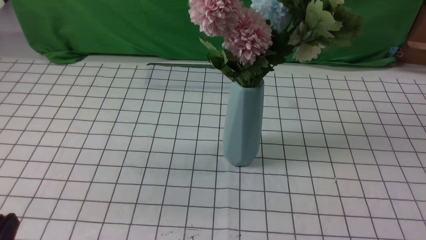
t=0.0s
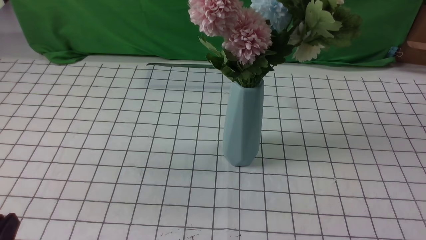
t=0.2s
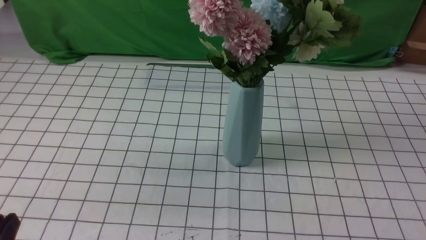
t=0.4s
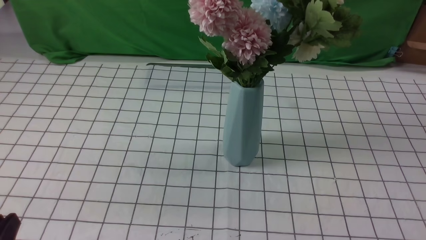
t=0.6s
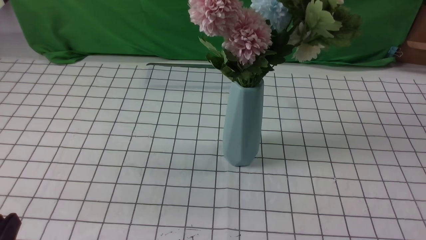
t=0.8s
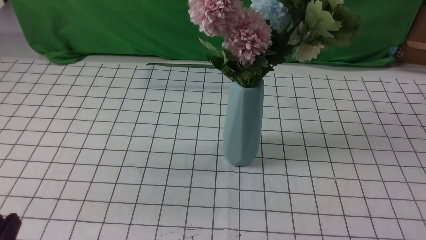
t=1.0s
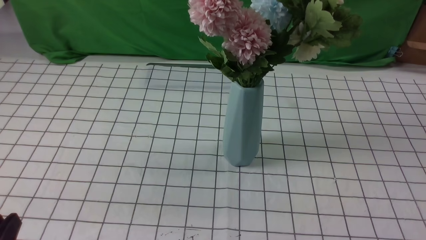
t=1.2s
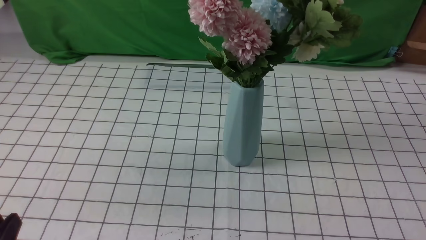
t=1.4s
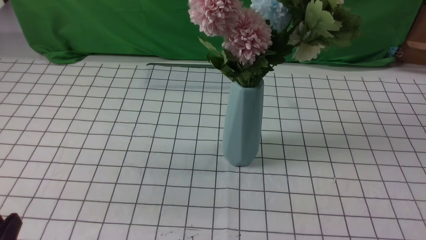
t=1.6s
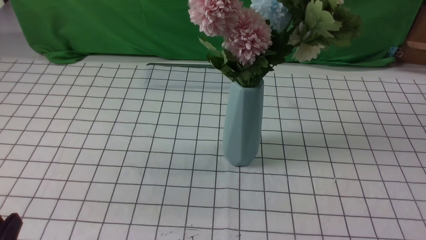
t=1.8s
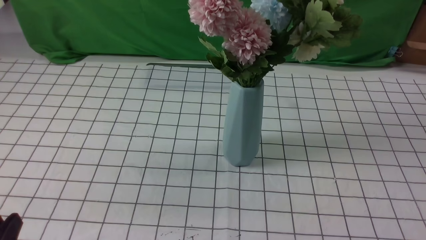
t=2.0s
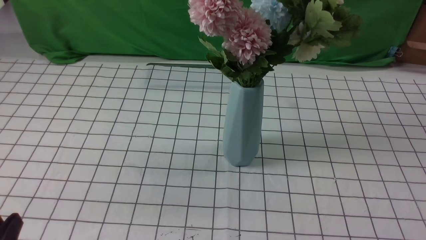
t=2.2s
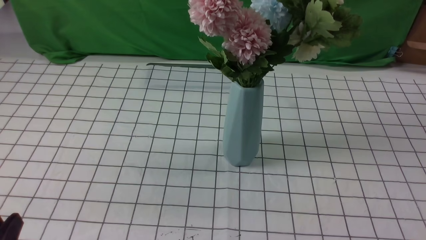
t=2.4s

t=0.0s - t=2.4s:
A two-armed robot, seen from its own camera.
Task of the whole recording: insert the flowers into the vase on the table with the white tablecloth.
t=1.2s - t=2.4s: Both grippers stay put.
